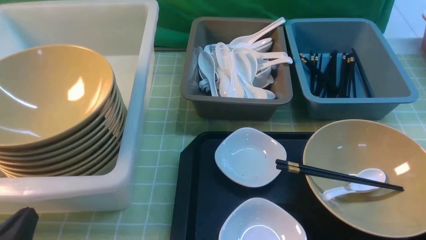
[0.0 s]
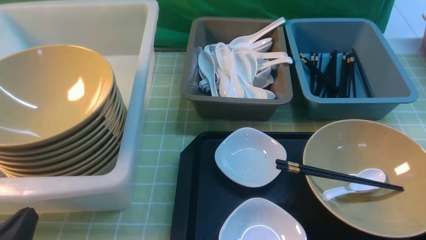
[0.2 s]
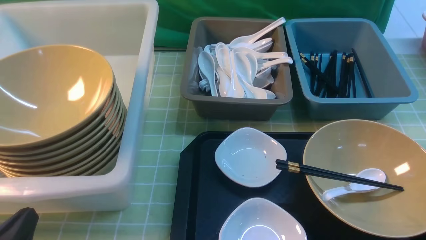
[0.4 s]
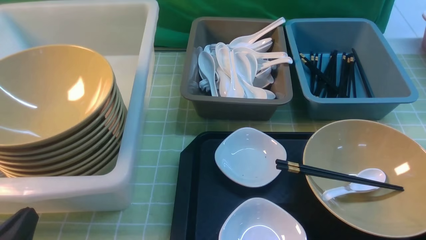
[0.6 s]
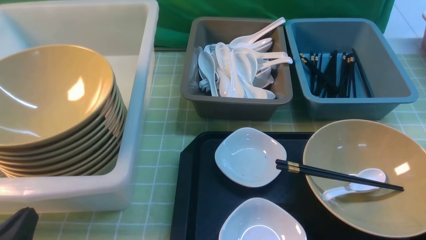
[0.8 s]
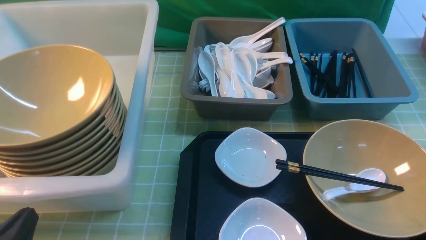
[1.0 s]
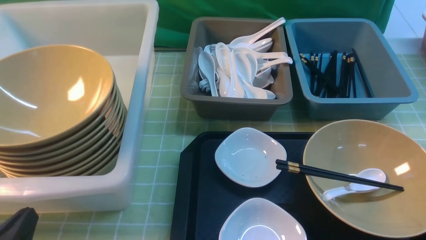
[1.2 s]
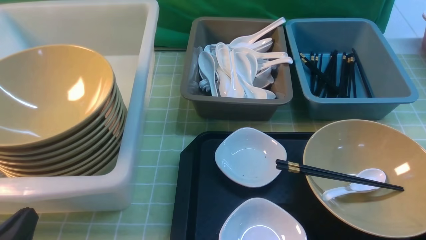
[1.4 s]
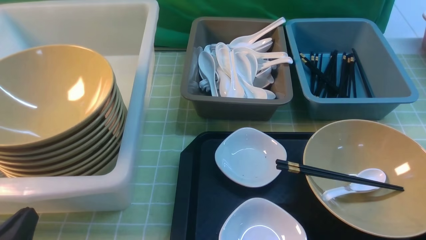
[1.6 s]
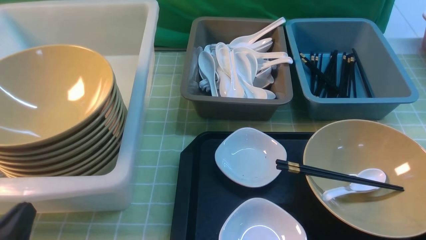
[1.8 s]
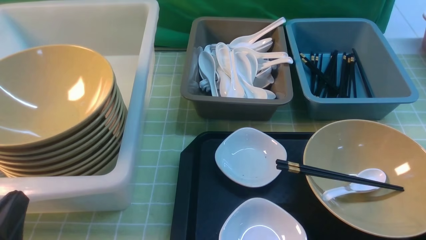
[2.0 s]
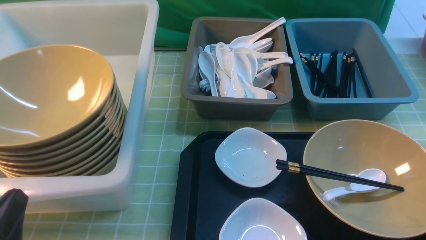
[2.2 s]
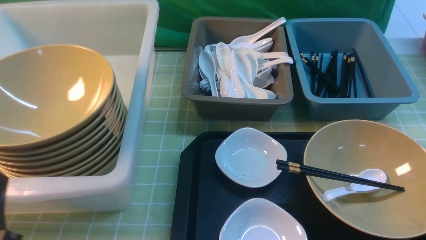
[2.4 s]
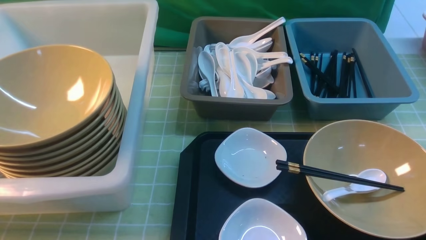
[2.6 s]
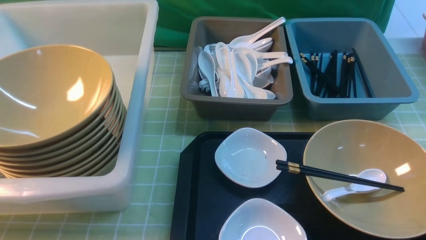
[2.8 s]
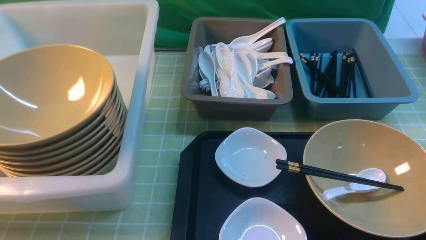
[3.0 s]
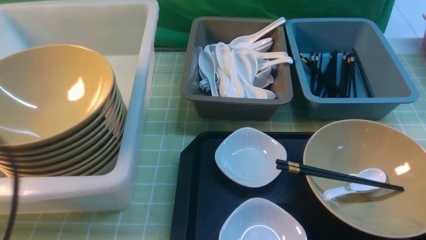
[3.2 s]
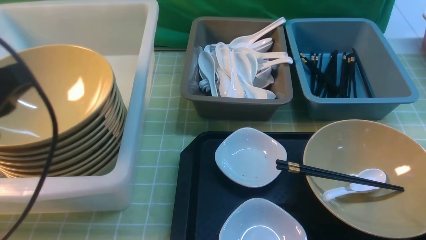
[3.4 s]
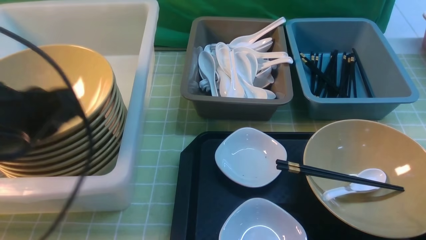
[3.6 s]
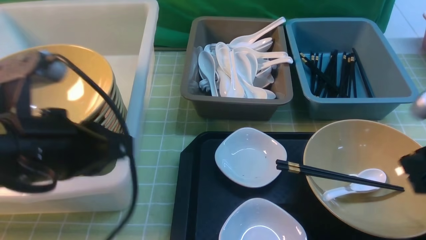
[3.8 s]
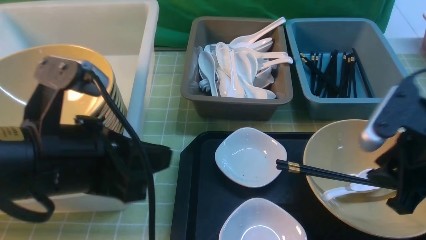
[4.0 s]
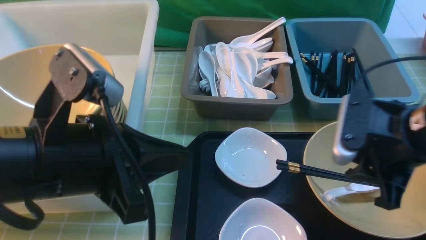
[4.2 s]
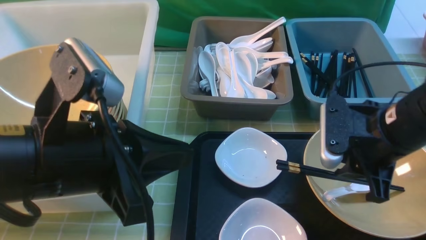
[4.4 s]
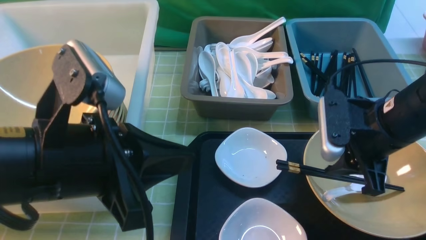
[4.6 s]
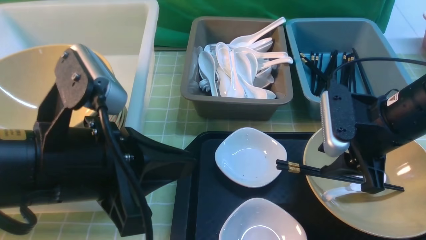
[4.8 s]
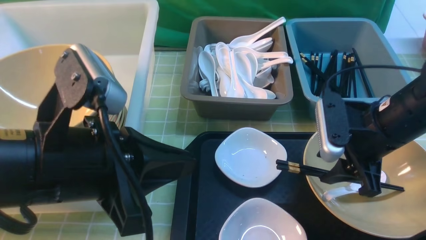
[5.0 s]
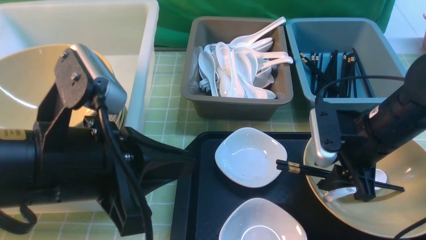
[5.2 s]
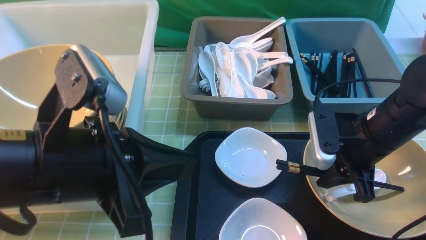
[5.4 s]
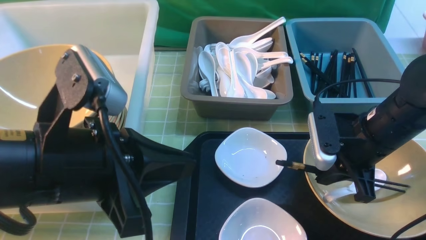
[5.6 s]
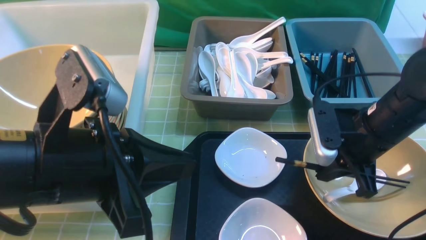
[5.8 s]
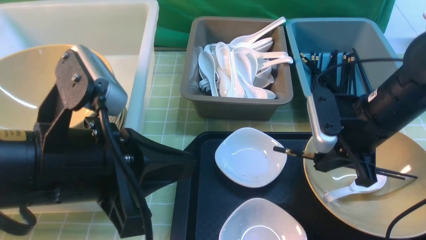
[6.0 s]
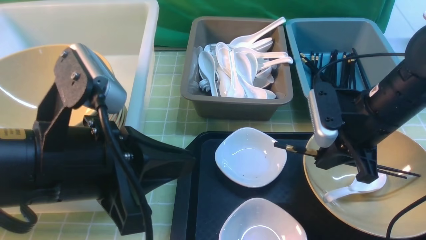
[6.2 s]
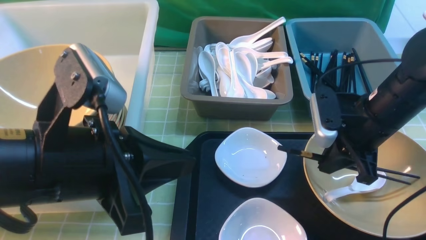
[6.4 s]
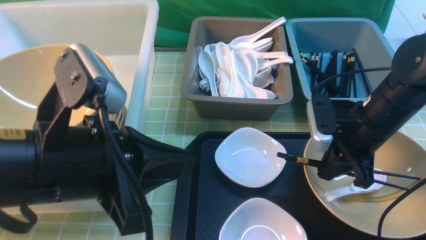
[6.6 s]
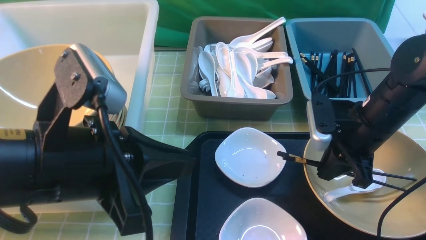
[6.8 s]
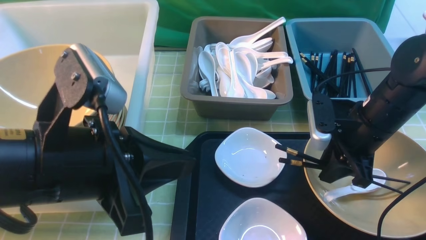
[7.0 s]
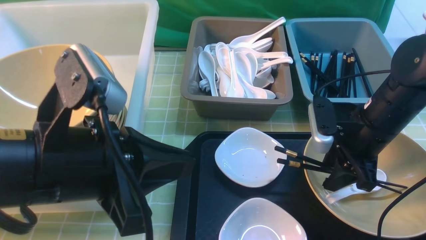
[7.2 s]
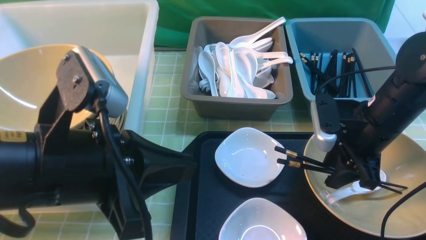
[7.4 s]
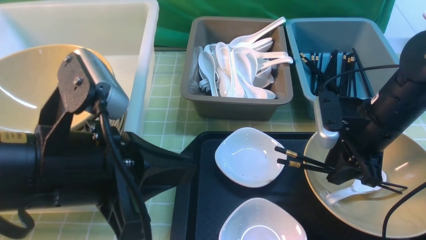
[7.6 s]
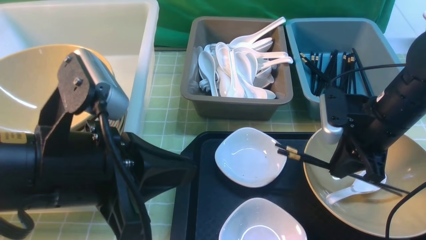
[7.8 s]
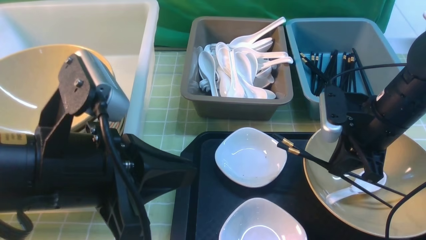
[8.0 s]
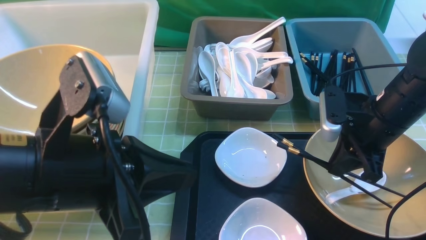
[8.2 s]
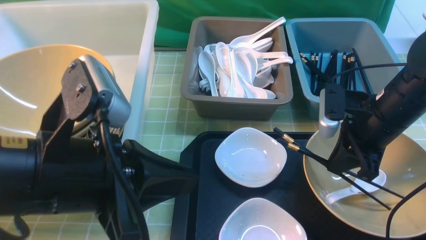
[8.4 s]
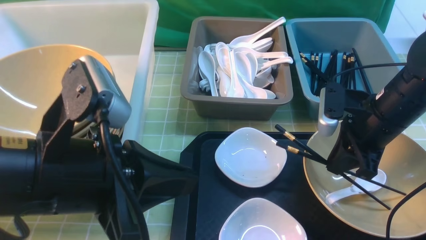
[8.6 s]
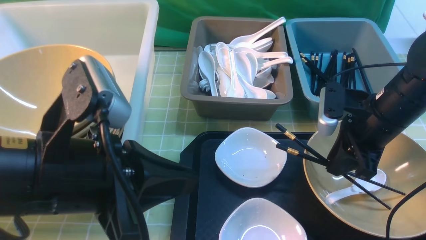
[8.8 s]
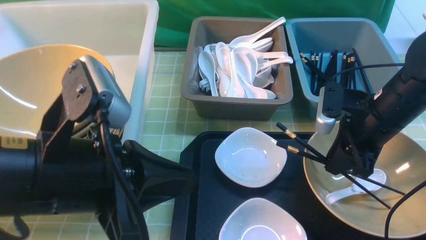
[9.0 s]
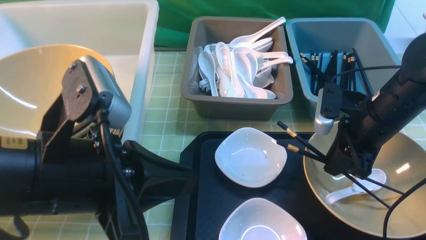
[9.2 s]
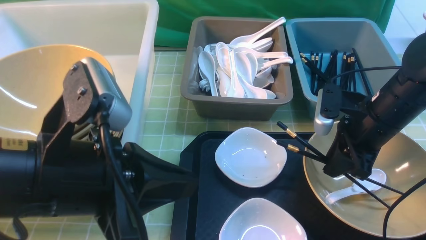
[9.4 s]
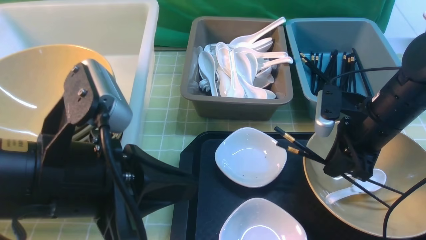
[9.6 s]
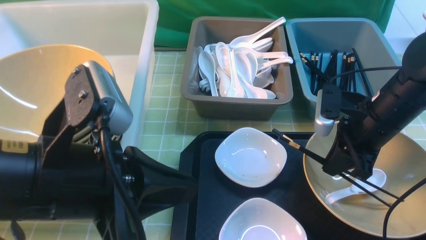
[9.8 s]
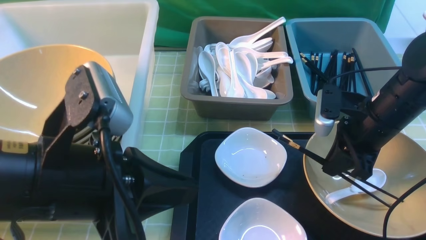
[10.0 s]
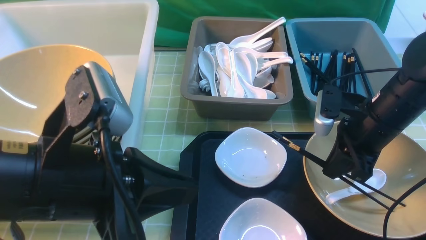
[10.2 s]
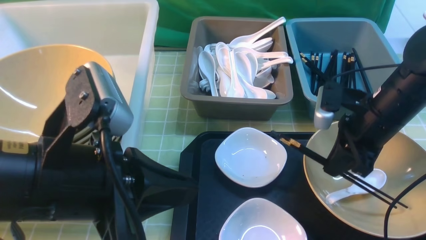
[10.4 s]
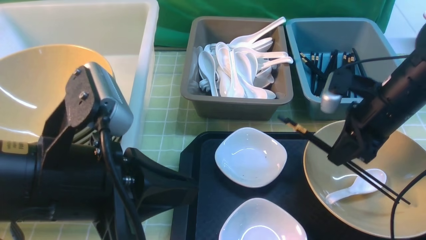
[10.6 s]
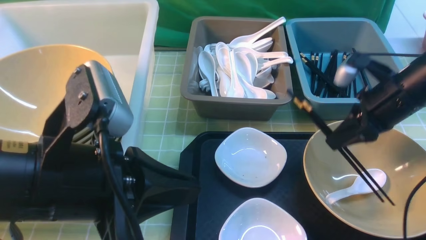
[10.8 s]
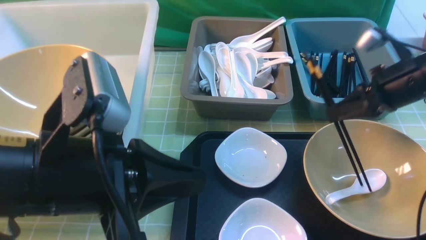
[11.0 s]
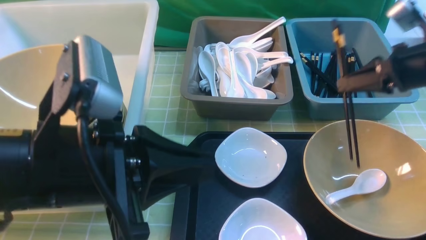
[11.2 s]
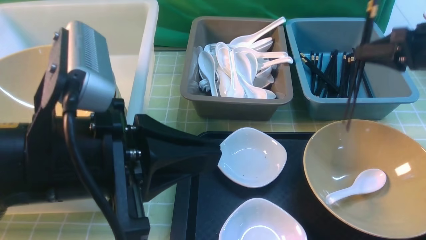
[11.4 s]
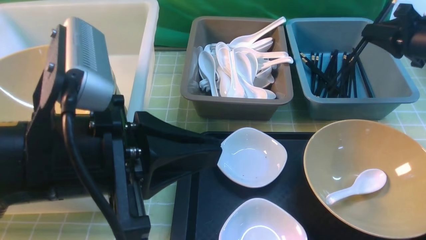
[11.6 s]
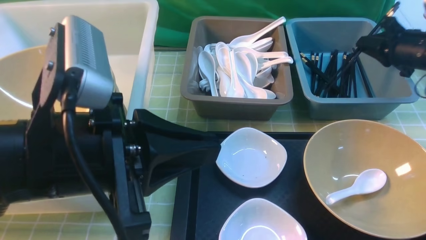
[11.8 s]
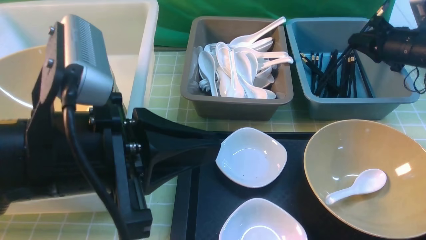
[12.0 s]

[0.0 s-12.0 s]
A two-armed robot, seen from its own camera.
Task of the whole recording: on green table put chopsticks spoon bowls plates into blue grey white boxes.
Step, 0.0 to 10.6 s: use the right arm to grab the chopsticks.
1.6 to 3.0 s: The left gripper shifts roughly 10 cm upward.
3.0 to 4.4 s: The left gripper moves to the right and forward, roughly 15 cm, while the right gripper goes about 20 cm forward and to the left.
4.4 to 6.0 s: The right gripper ends up approximately 5 cm from where it was, and closes up.
6.0 to 7.6 s: The right gripper opens up.
7.6 to 9.0 s: The right gripper closes and opens again.
9.0 to 10.4 s: The right gripper closes up.
10.4 to 12.0 s: The right gripper travels to the right and forward by approximately 20 cm.

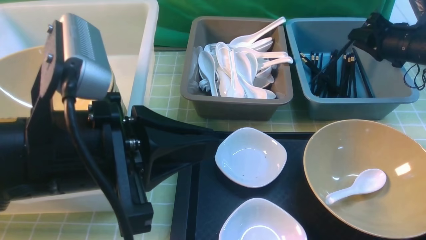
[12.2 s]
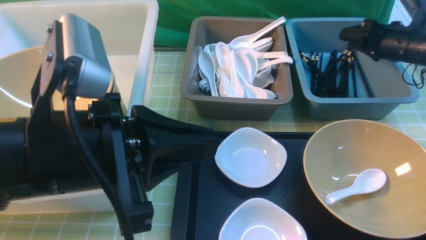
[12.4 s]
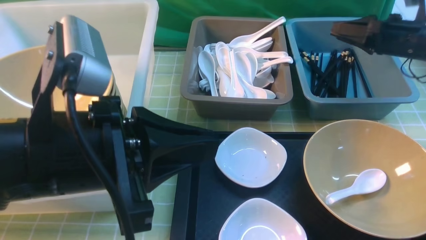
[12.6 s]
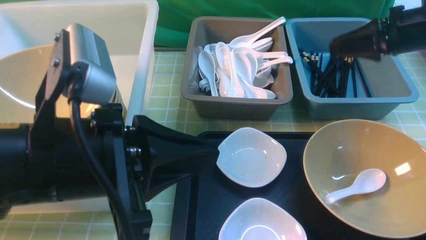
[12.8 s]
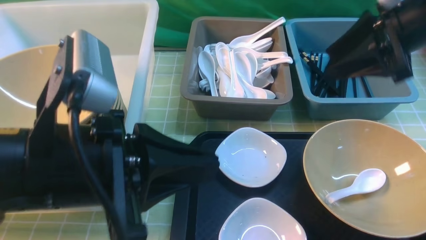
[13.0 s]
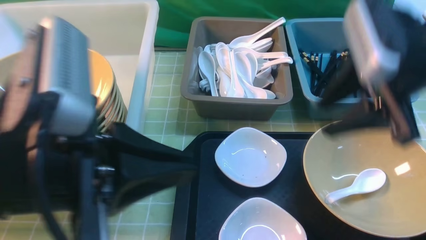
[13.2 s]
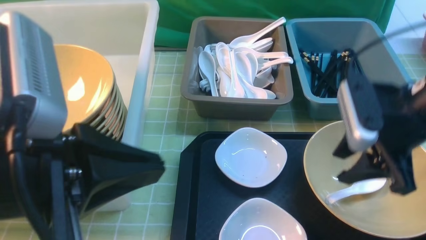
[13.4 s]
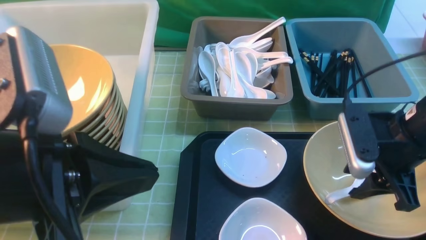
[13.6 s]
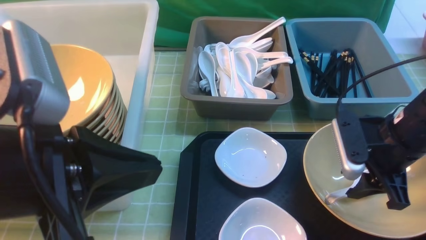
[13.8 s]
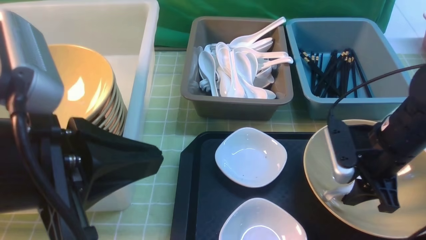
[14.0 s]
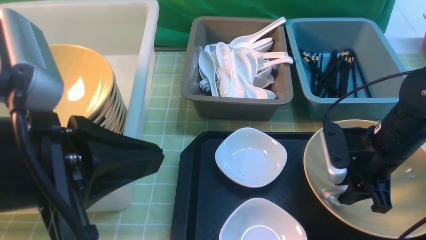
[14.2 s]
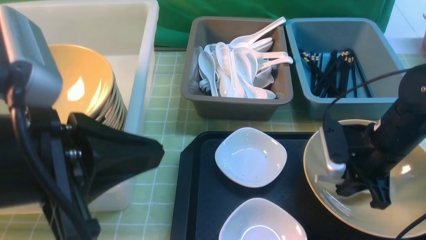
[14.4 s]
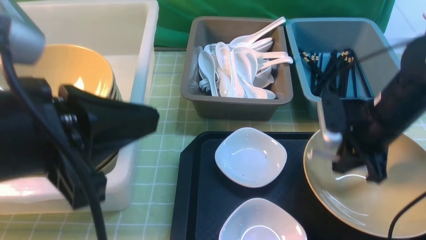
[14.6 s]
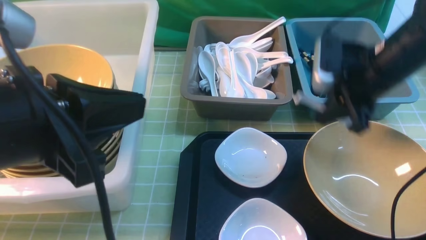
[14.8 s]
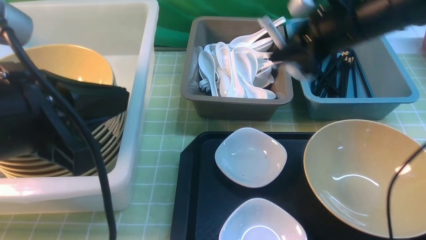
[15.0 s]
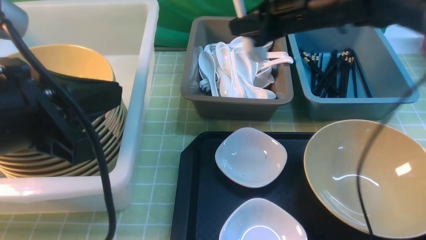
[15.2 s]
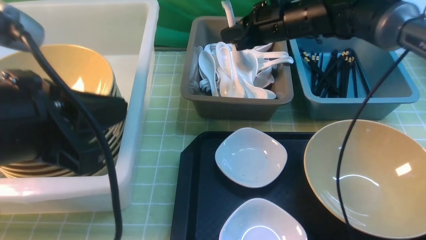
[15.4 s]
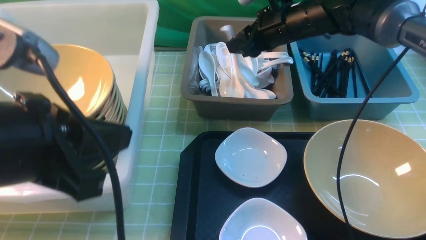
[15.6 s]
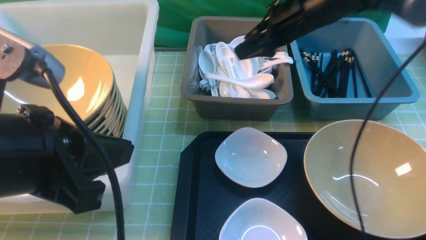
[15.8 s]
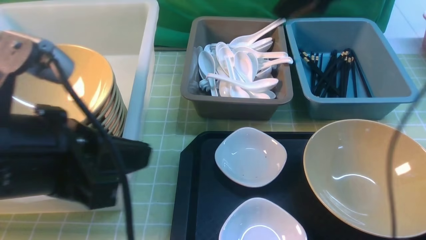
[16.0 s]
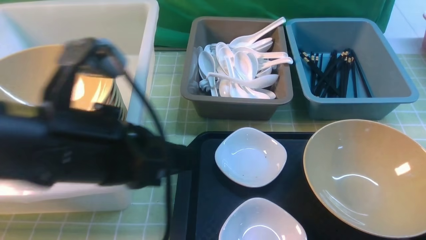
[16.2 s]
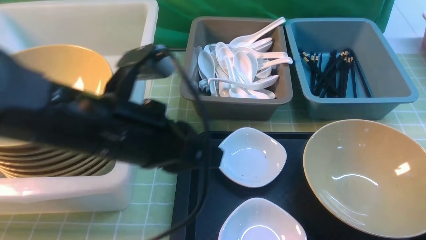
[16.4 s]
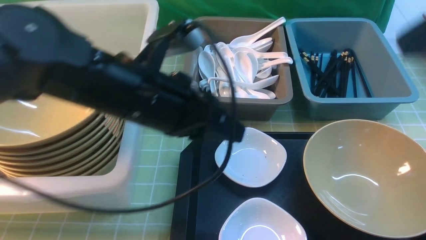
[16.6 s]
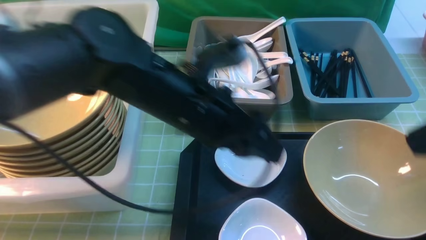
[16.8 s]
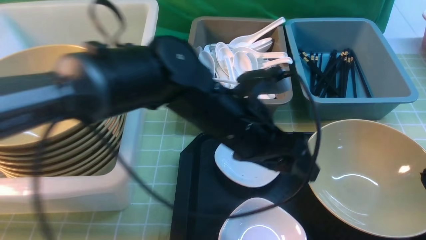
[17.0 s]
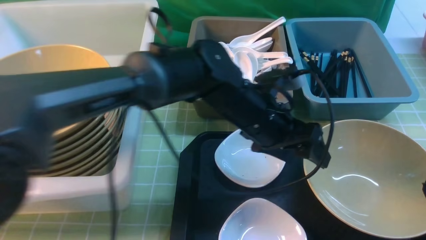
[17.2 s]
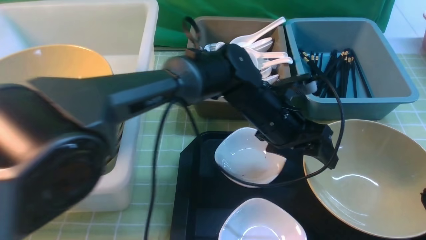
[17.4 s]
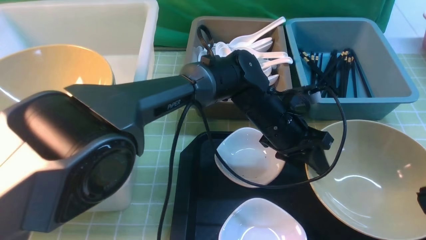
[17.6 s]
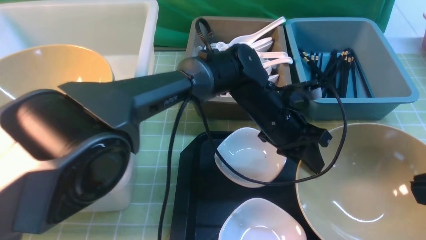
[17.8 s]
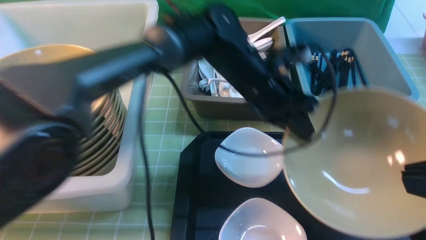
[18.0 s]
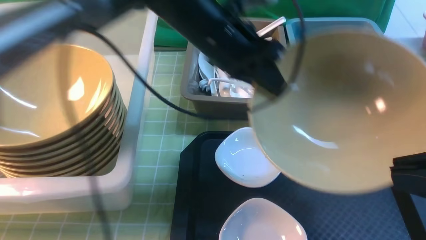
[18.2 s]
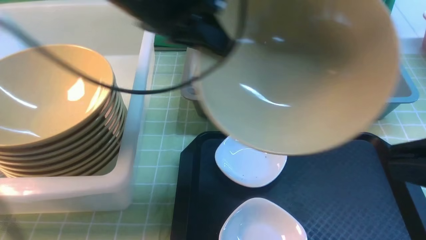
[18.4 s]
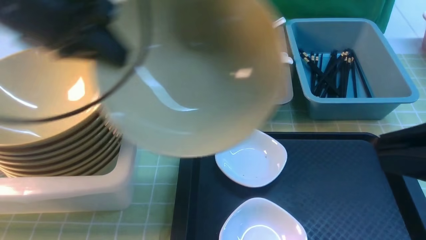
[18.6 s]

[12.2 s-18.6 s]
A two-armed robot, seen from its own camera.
Task of the whole recording: on green table put chopsticks spoon bowls plates into blue grey white boxes.
Step, 13.0 to 14.6 s: use the right arm to grab the soup spoon in the middle.
Step, 15.0 to 15.8 s: use the right arm to put the soup spoon into the small storage box in the middle.
Step, 16.0 to 18.0 s: use the left arm to grab the yellow noodle bowl on the left.
12.2 to 13.8 s: The right gripper moves backward and to the left, about 25 cm, and opens its fingers.
13.8 to 15.4 s: The right gripper is displaced forward and to the left by about 20 cm, and closes.
15.4 to 17.0 s: The left gripper travels to the right, forward and downward by some 25 cm, and opens up, while the right gripper heads backward, covering roughly 35 cm, and opens, then closes once more.
17.0 to 18.6 s: The left gripper moves to the left and upward, approximately 20 cm, and closes.
